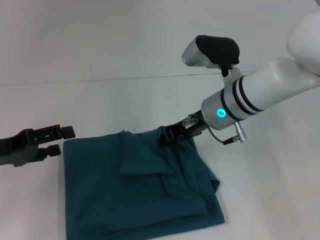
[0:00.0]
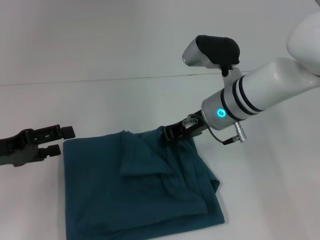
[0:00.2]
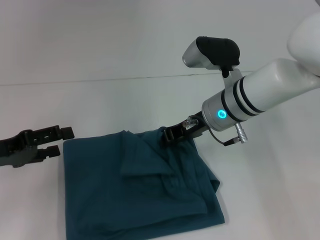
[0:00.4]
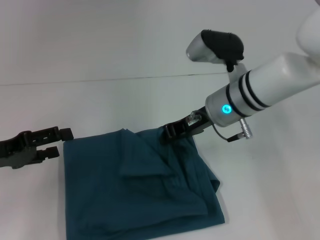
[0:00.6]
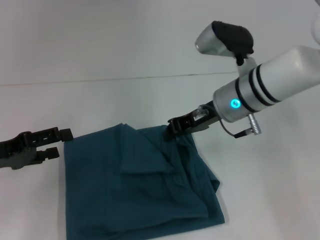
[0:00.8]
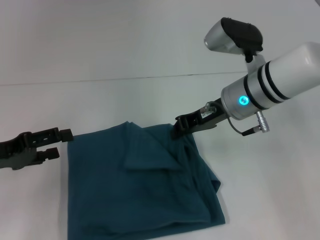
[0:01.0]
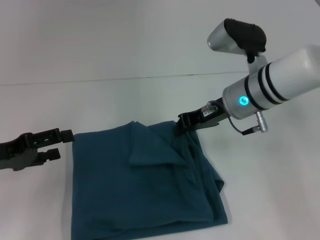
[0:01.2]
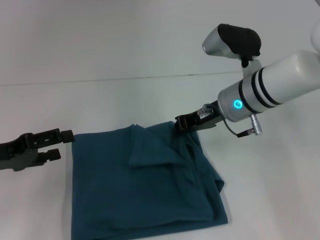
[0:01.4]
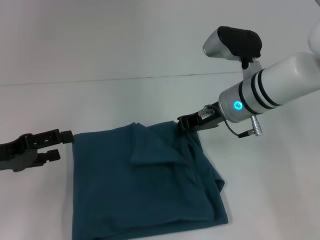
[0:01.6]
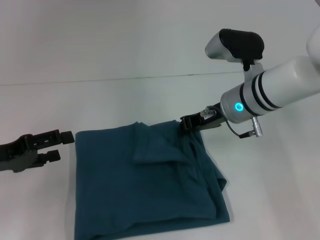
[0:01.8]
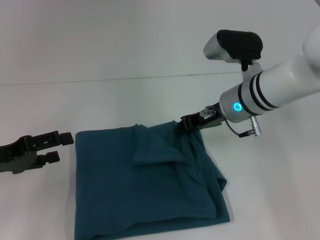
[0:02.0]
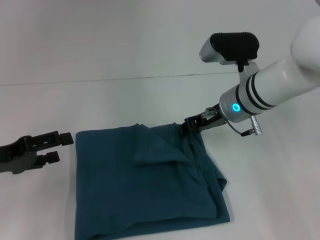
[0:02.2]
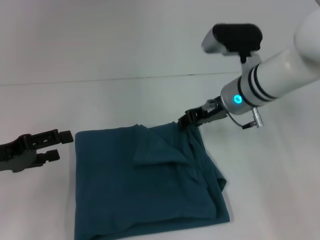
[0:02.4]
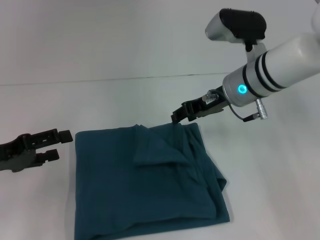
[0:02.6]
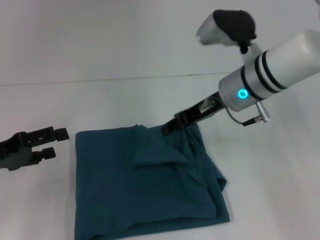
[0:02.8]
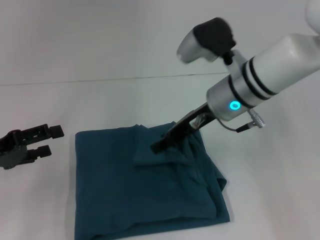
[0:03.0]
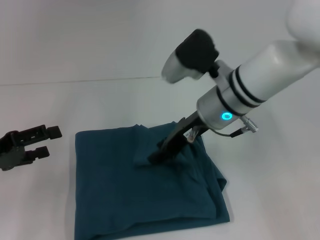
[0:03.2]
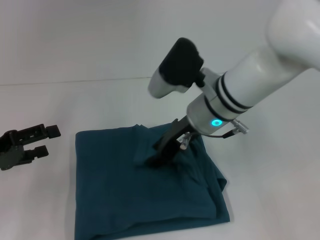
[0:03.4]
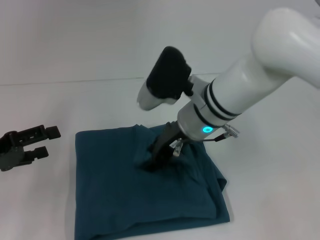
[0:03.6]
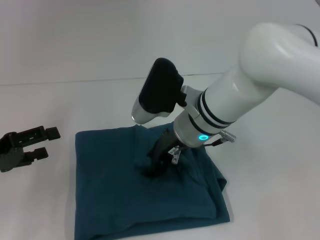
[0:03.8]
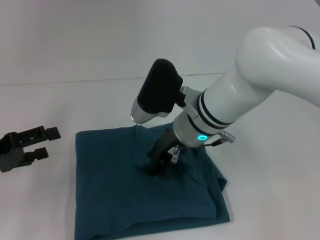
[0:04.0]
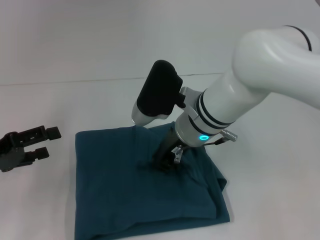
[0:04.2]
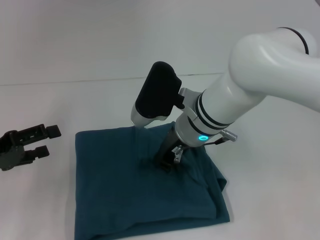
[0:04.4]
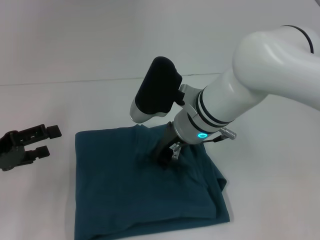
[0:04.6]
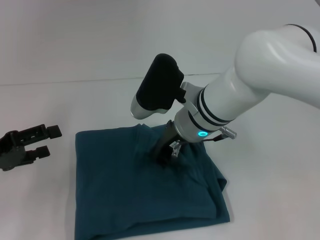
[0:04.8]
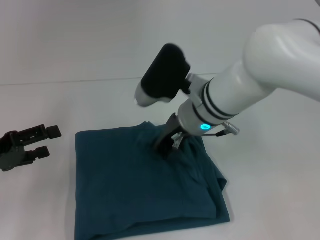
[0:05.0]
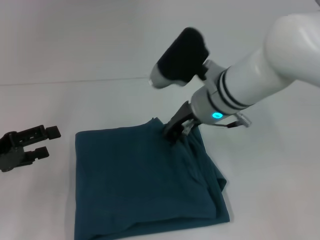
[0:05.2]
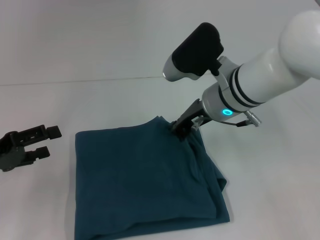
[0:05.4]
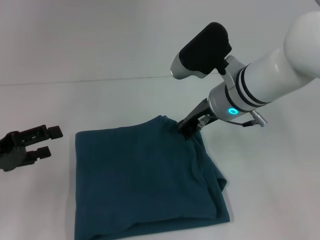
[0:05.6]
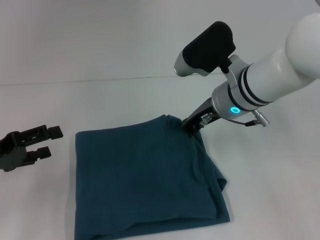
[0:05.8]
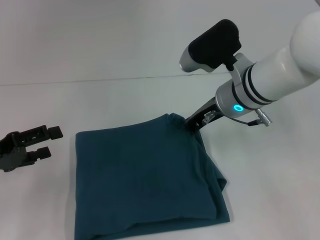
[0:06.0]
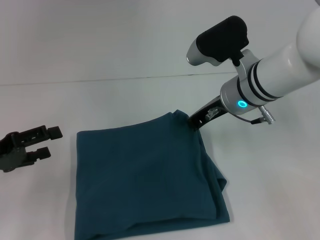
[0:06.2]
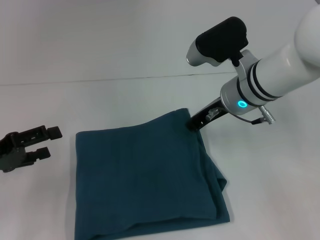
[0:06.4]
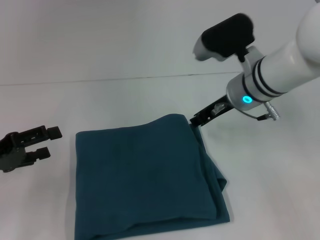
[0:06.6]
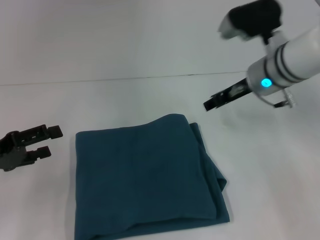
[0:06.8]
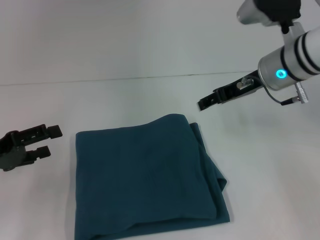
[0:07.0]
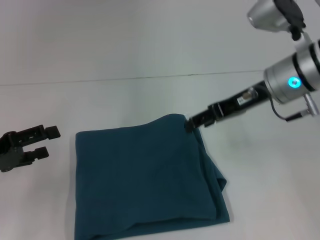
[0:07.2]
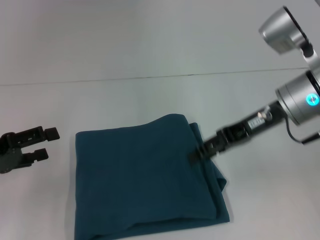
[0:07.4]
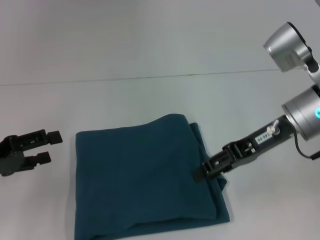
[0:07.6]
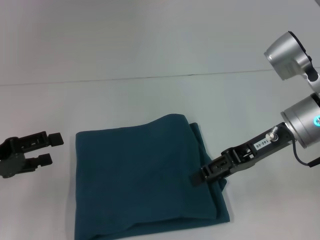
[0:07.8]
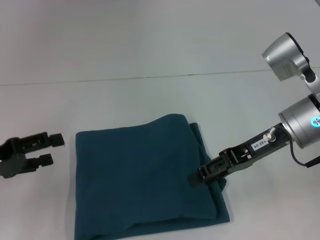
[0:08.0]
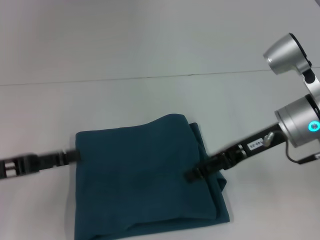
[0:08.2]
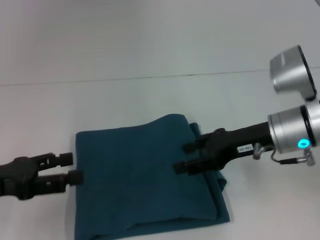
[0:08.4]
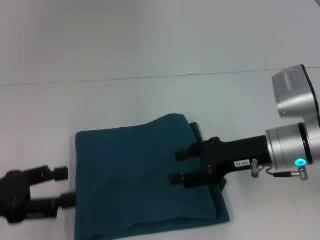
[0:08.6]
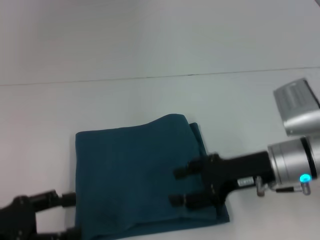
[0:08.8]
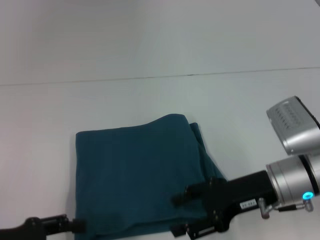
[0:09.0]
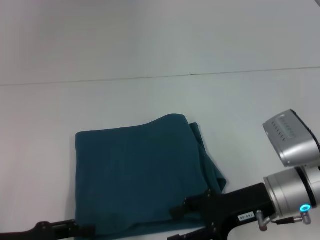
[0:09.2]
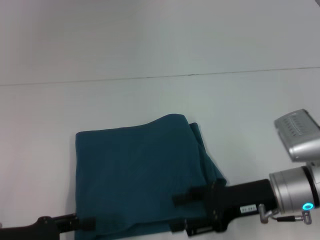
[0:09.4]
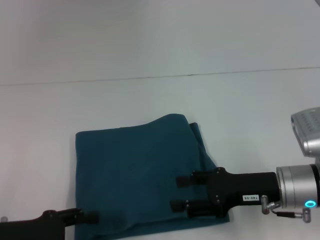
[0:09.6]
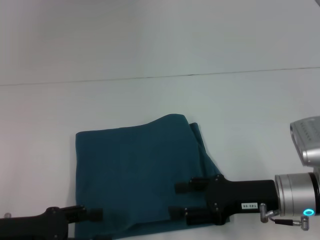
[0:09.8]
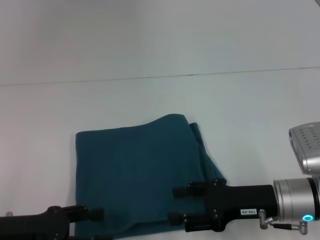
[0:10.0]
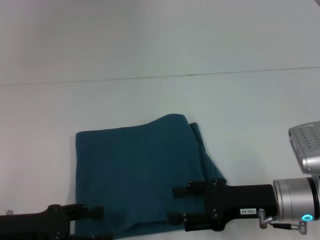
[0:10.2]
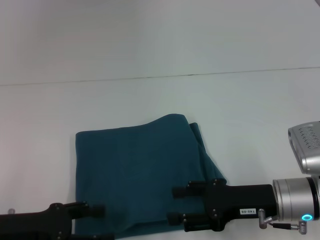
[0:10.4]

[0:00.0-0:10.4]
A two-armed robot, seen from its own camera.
0:00.0 to 0:01.4: The grippers move only a little.
0:01.4 to 0:03.0: The right gripper opens its fingers.
0:03.0 to 0:04.4: The right gripper travels to the left by roughly 5 cm.
0:04.4 to 0:06.0: The right gripper heads to the right, covering some 5 cm.
0:06.0 to 0:07.4: The right gripper is displaced to the right by approximately 10 cm, and opens.
0:07.4 to 0:09.0: The left gripper heads backward, covering approximately 10 cm. The right gripper shifts approximately 10 cm downward and backward.
0:09.0 to 0:10.4: The grippers make only small movements.

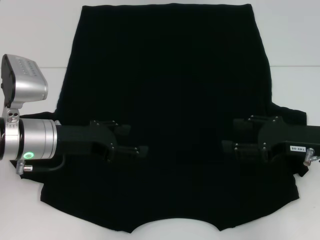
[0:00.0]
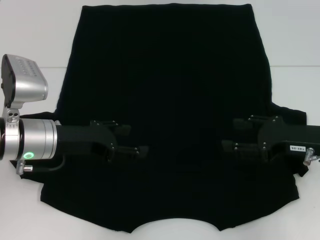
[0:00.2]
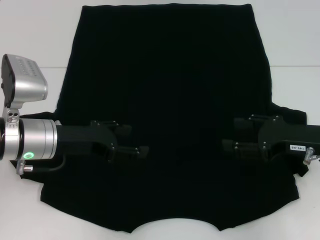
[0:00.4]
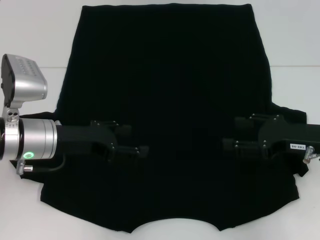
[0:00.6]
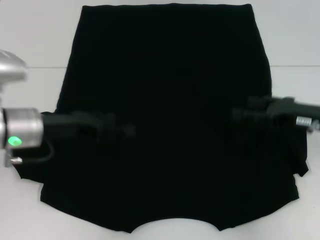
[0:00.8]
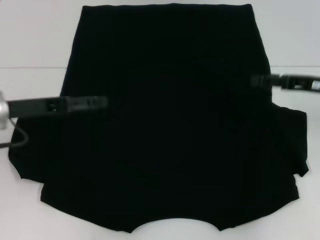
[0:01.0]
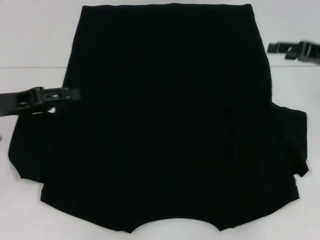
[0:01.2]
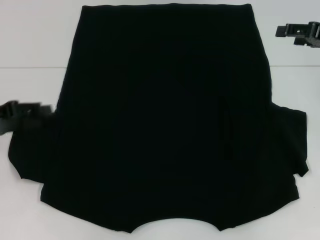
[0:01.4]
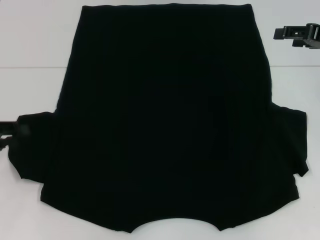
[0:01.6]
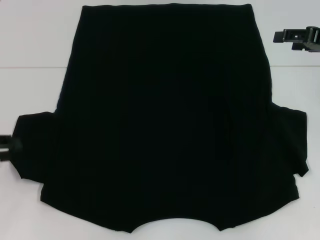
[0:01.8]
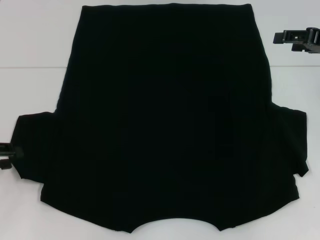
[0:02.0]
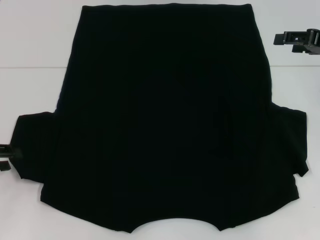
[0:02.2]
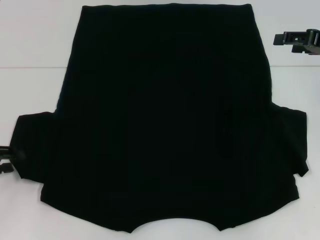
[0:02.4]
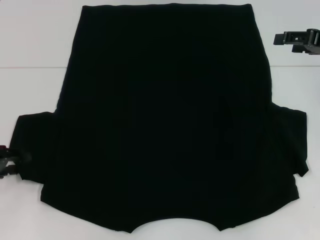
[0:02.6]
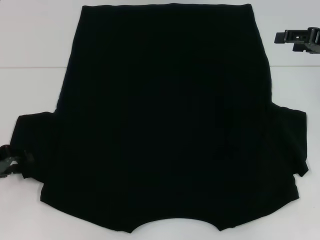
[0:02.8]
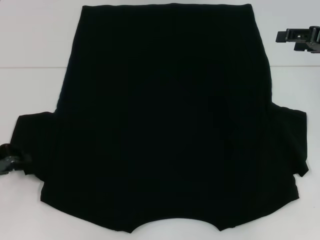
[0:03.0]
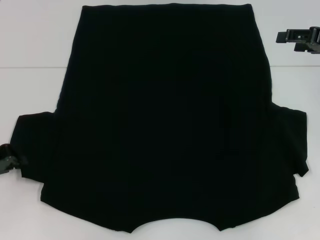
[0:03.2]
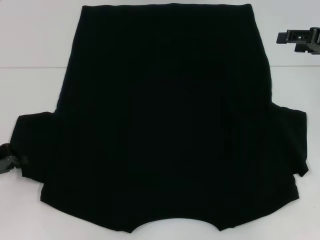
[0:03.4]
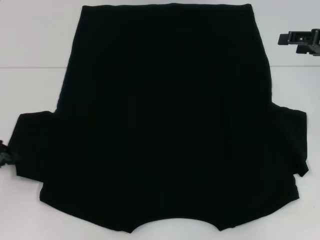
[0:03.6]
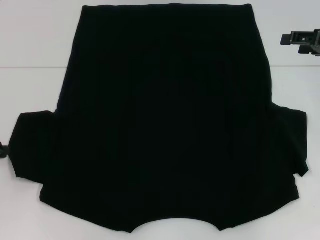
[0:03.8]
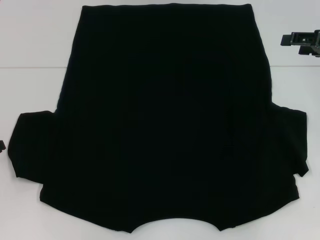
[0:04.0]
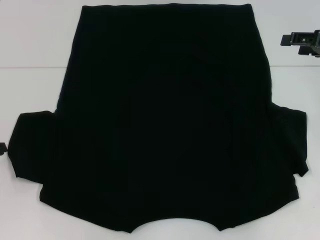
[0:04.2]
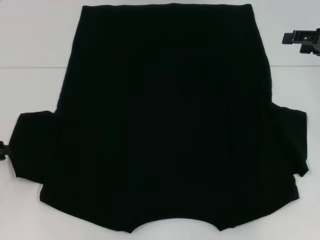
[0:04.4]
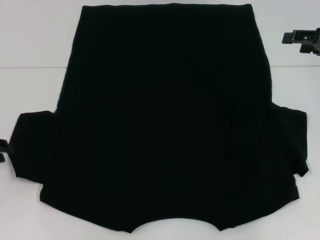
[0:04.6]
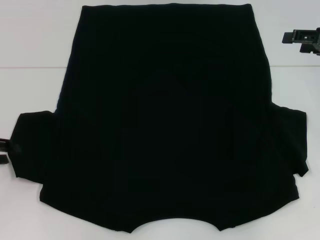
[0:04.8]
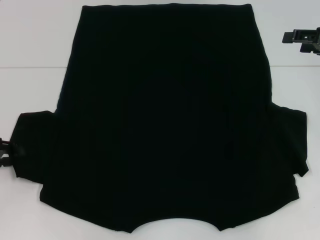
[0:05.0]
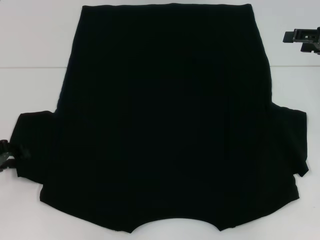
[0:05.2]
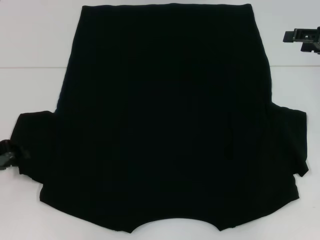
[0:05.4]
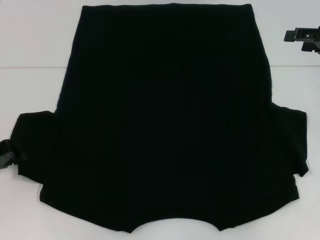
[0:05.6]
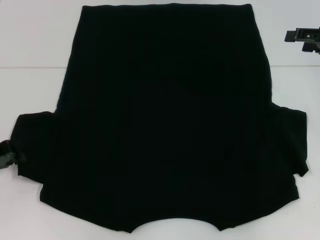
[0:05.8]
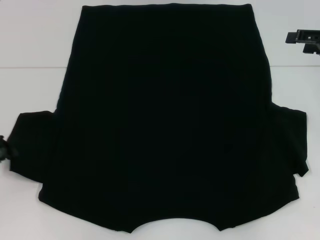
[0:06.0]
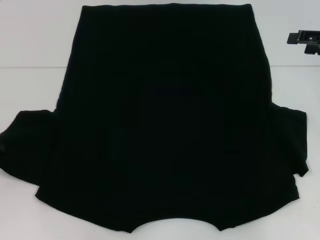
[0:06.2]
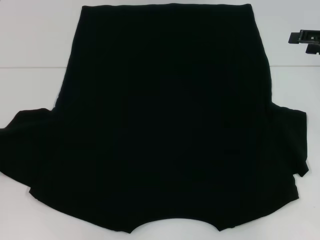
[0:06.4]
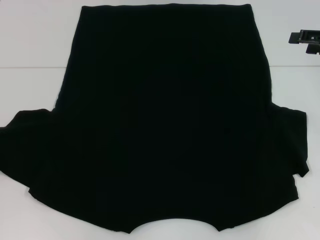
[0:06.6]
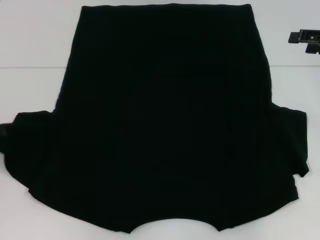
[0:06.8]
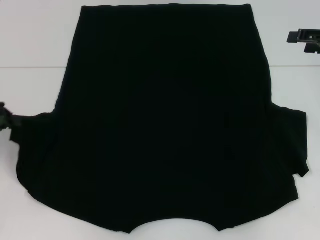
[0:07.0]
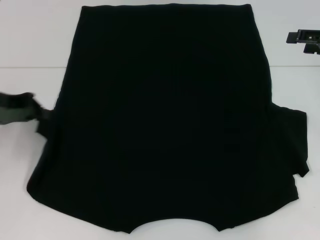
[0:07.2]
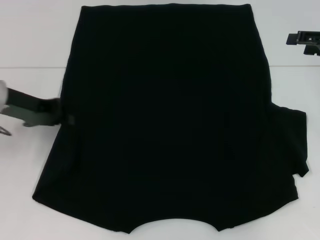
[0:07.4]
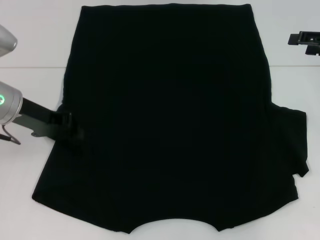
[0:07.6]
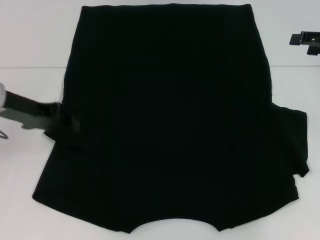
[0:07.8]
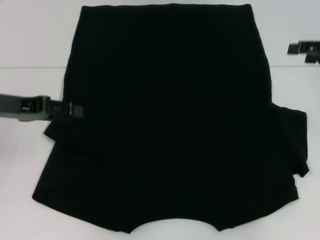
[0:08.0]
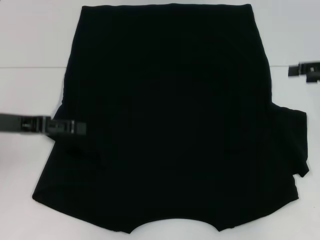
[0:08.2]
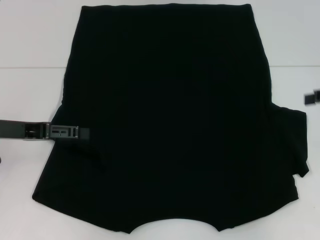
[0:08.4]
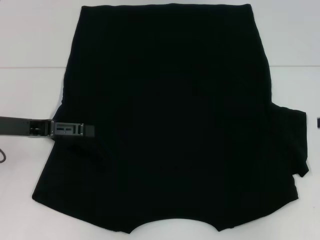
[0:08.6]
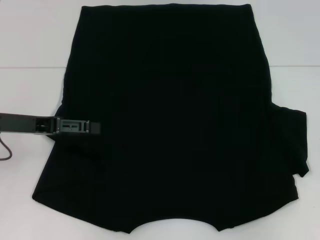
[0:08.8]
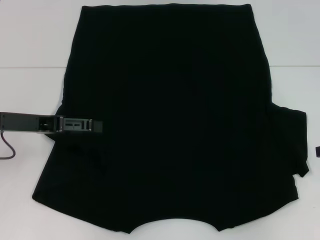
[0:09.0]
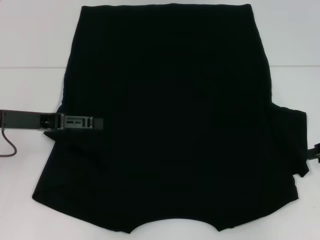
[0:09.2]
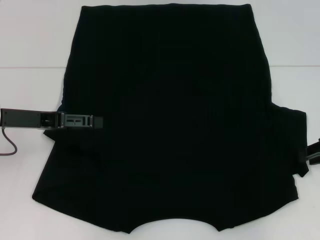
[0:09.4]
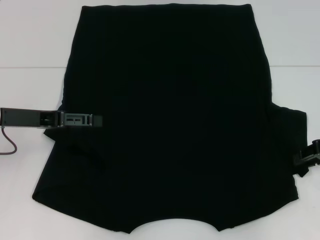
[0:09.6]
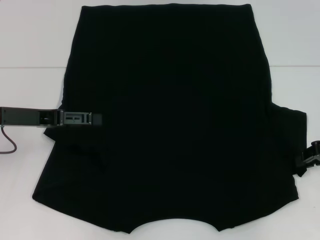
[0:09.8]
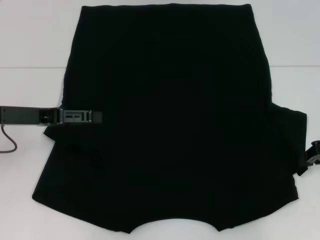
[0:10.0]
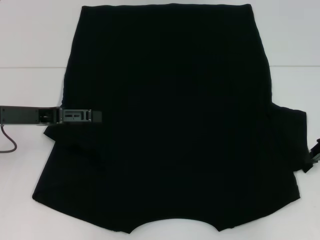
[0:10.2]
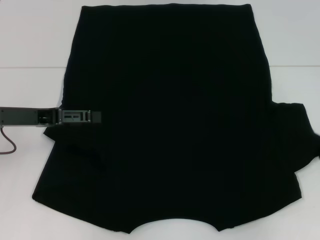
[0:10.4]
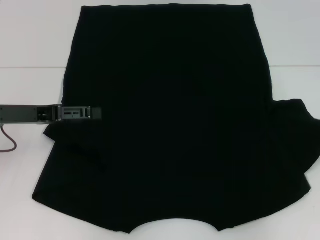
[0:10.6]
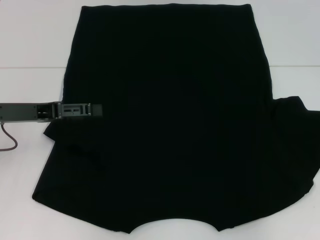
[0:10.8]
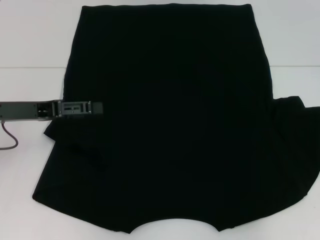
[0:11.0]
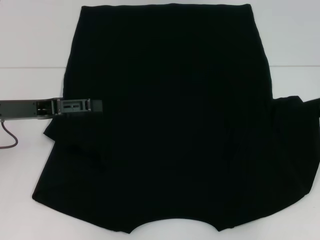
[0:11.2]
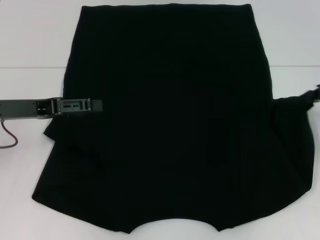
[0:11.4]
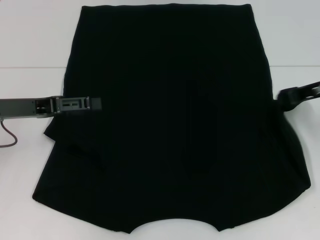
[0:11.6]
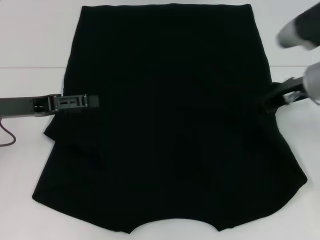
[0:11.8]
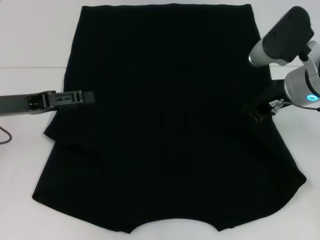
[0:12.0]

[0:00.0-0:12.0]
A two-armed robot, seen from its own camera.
Step, 0:00.0 to 0:07.8: Fold the bottom left sleeve with your left hand.
0:00.0 to 0:01.6: The right gripper is displaced upward and forward by approximately 15 cm, while the left gripper shifts about 15 cm to the left.
0:01.6 to 0:03.0: The grippers move only a little.
0:03.0 to 0:04.4: The left gripper closes up.
0:06.0 to 0:07.6: The left gripper moves to the right, forward and upward, approximately 15 cm.
0:07.6 to 0:09.0: The right gripper travels backward and downward by roughly 10 cm. Meanwhile the left gripper moves about 5 cm, and opens up.
0:09.0 to 0:10.4: The right gripper closes.
0:10.4 to 0:12.0: The right gripper goes approximately 15 cm to the left.
